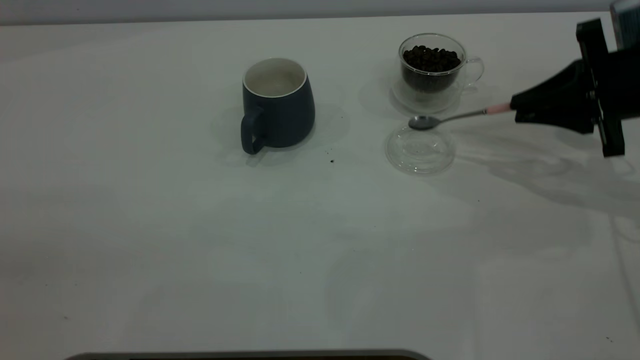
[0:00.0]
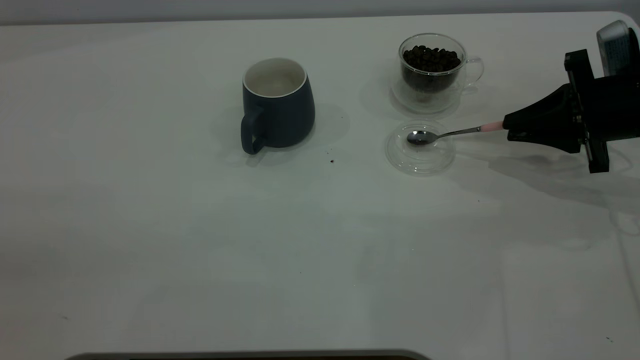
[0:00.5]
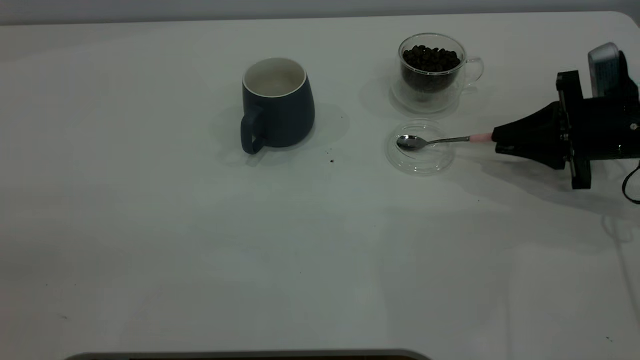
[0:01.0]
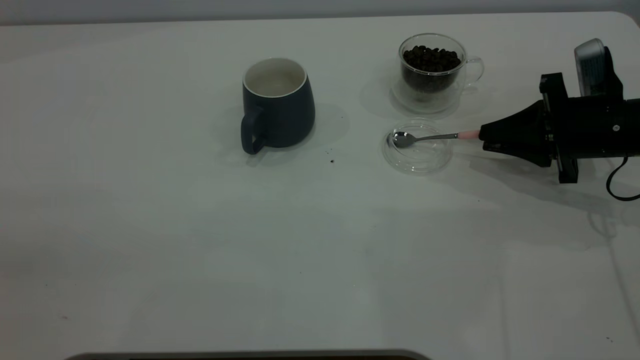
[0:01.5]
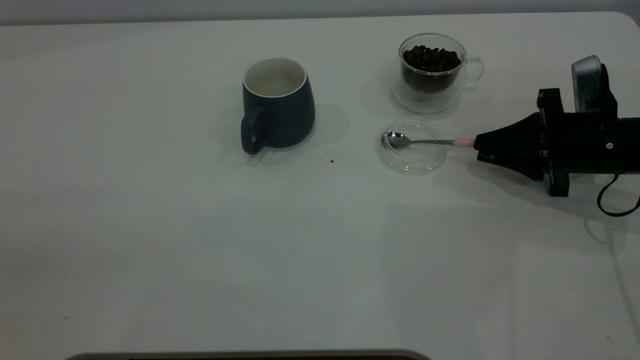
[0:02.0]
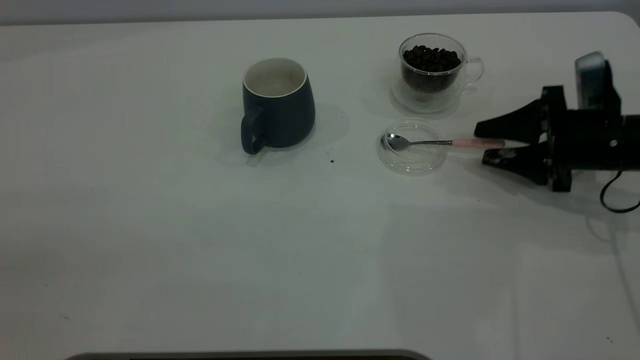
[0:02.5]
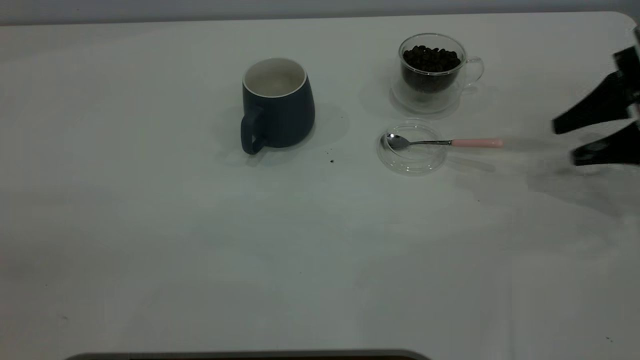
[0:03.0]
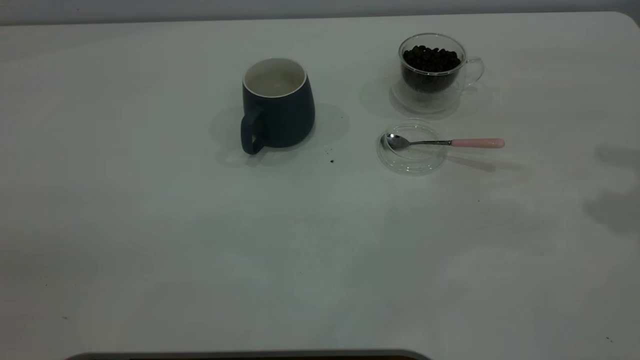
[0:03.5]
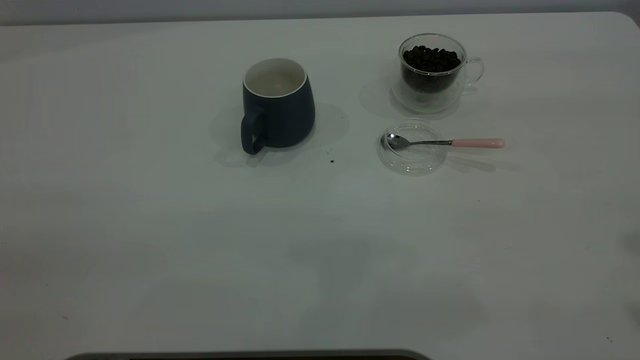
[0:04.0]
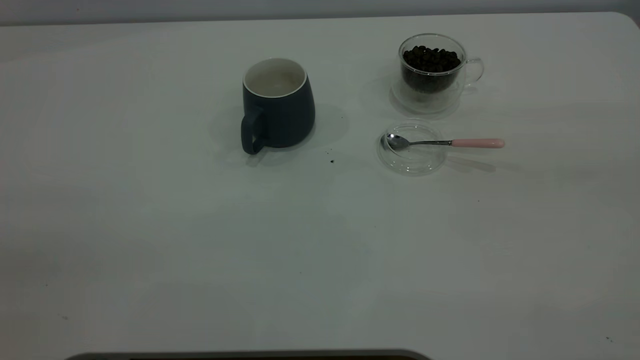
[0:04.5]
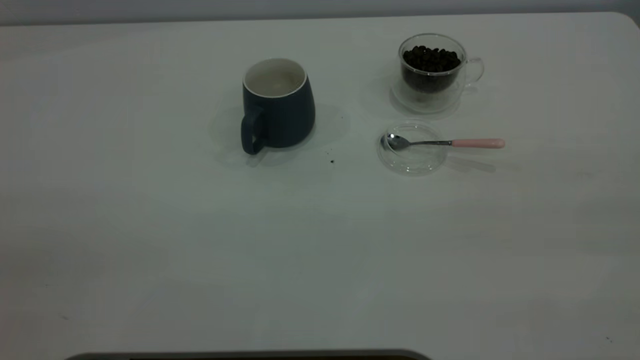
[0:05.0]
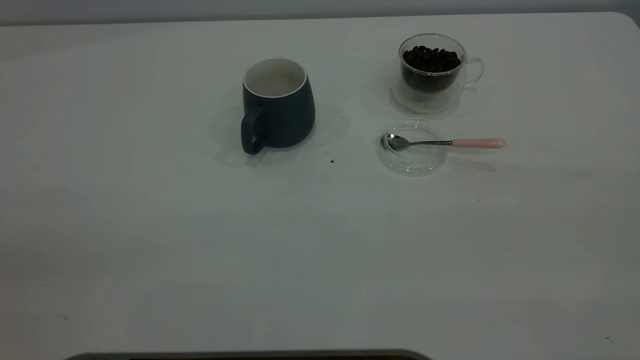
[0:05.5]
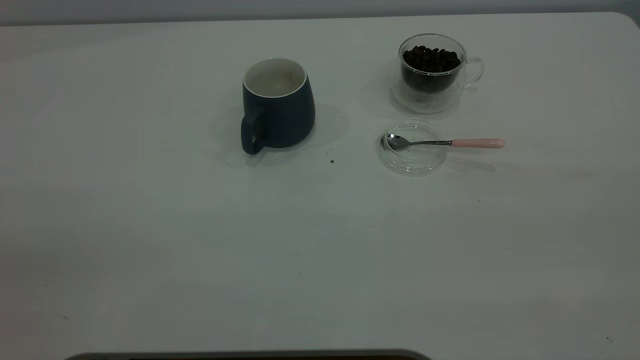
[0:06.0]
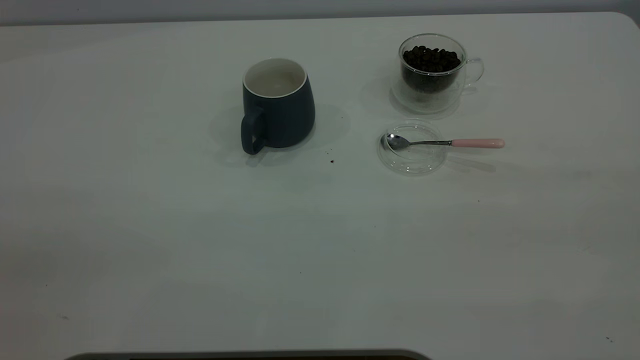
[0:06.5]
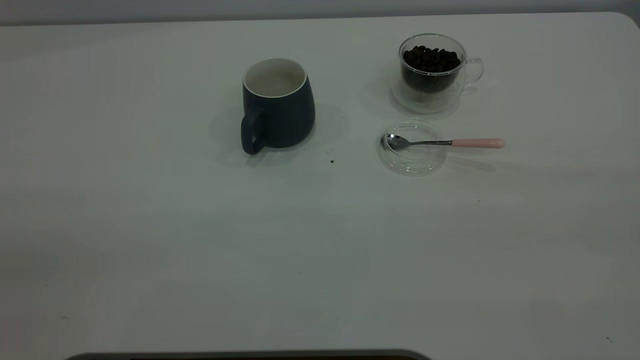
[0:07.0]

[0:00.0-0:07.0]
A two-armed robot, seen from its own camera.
Task of the whole recording: the left gripper place the grey cup in the center of the table, the right gripper take the pink spoon from the cup lid and scoop out the coffee beans from the coffee cup and put them into the grey cup, the right gripper put the spoon back into the cup lid.
Step, 0:00.0 to 0:02.5: Place the spoon back in its original place.
0:00.0 to 0:02.0: The right gripper is displaced downward by some 10 cm.
0:02.0 to 0:03.5: The right gripper moves upward, roughly 30 cm, and opens its fingers.
